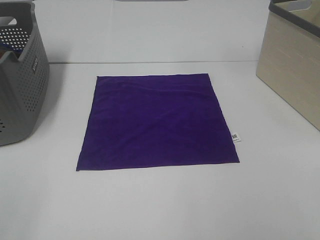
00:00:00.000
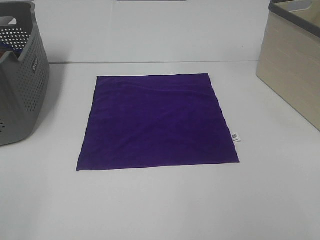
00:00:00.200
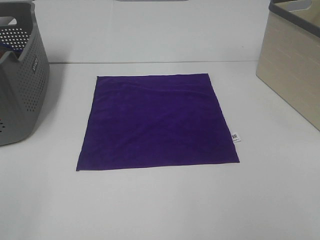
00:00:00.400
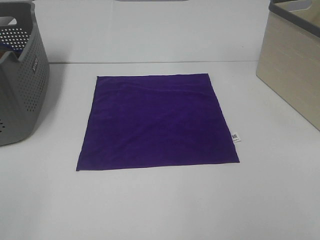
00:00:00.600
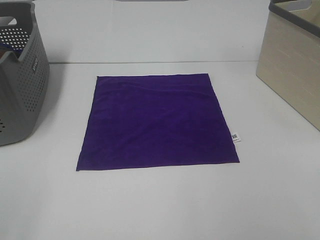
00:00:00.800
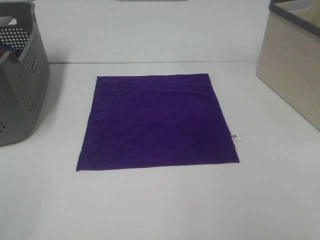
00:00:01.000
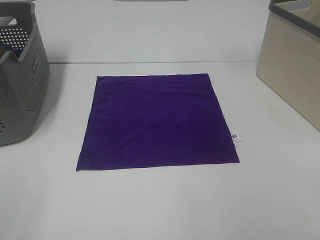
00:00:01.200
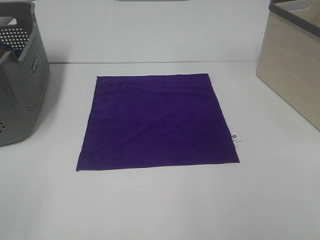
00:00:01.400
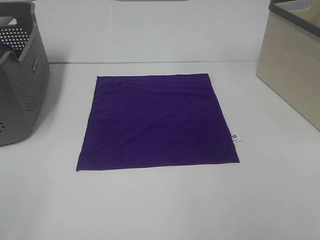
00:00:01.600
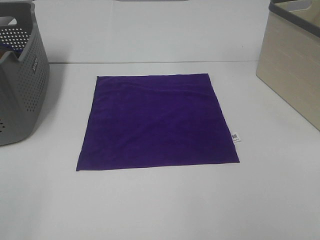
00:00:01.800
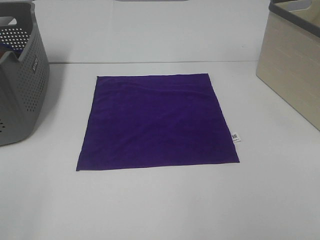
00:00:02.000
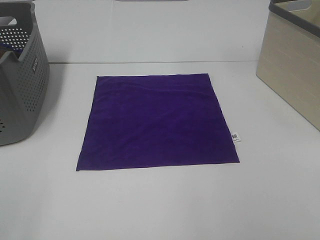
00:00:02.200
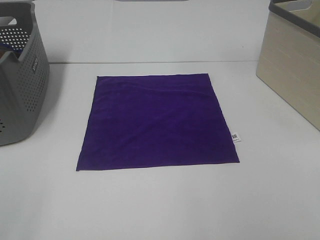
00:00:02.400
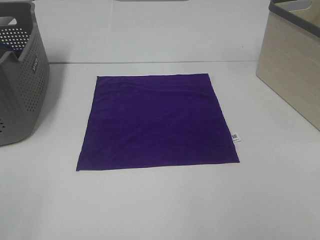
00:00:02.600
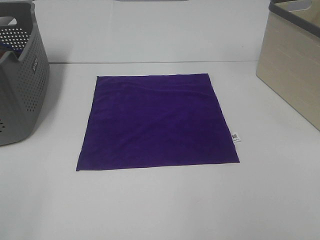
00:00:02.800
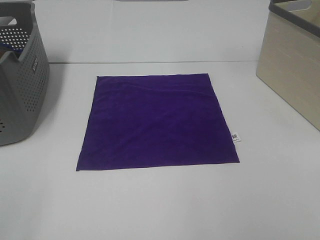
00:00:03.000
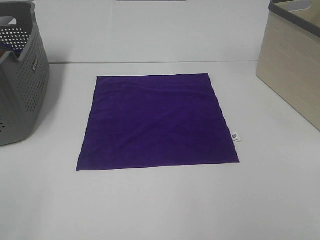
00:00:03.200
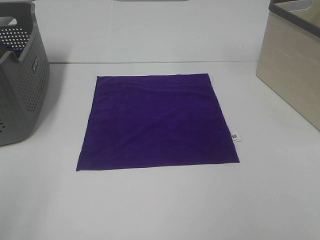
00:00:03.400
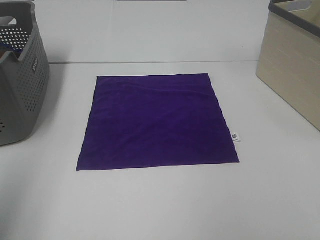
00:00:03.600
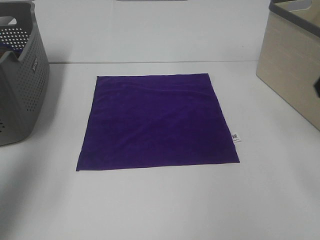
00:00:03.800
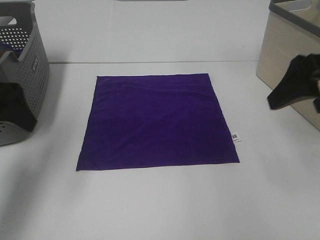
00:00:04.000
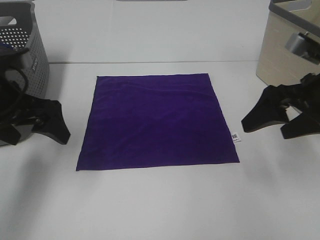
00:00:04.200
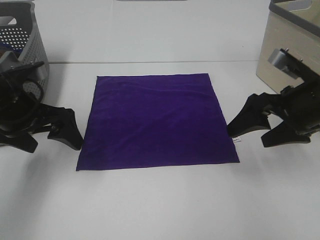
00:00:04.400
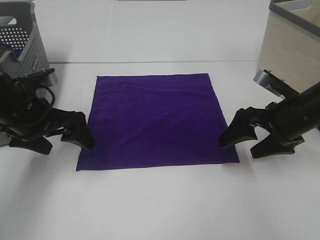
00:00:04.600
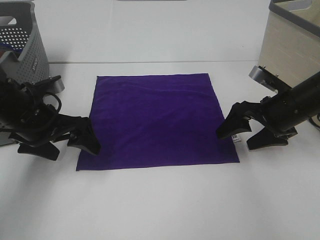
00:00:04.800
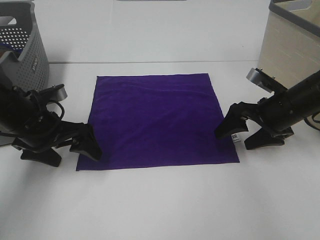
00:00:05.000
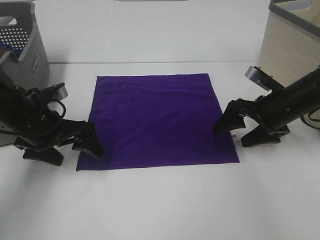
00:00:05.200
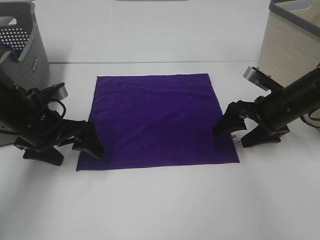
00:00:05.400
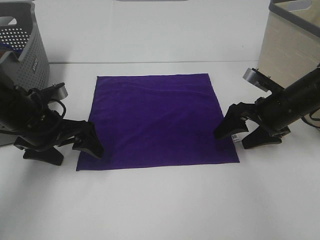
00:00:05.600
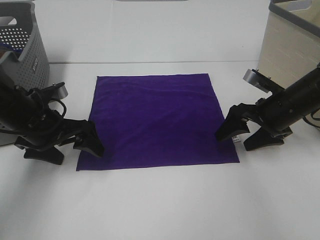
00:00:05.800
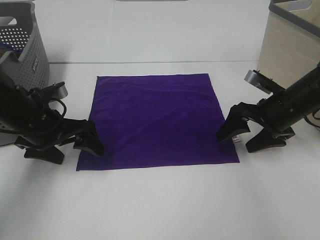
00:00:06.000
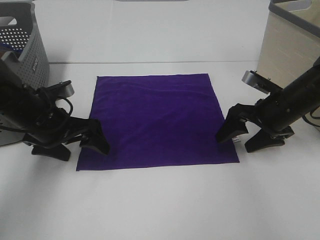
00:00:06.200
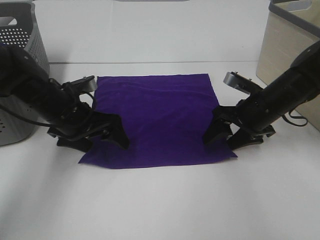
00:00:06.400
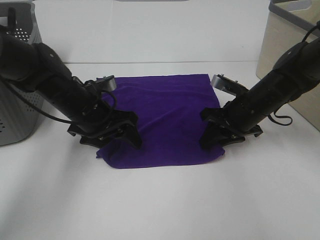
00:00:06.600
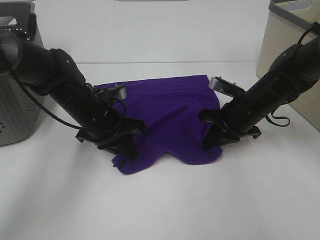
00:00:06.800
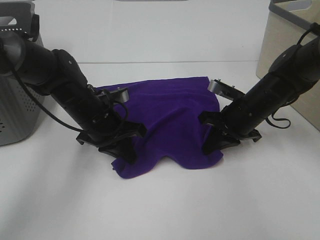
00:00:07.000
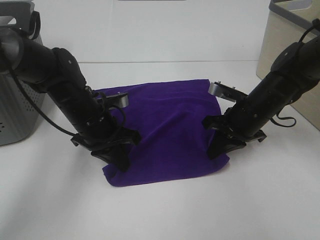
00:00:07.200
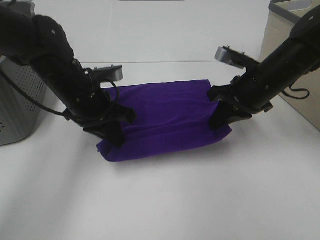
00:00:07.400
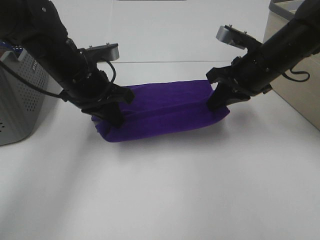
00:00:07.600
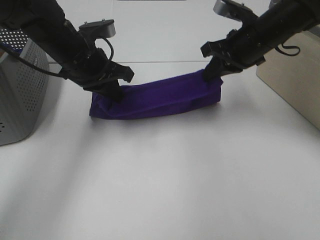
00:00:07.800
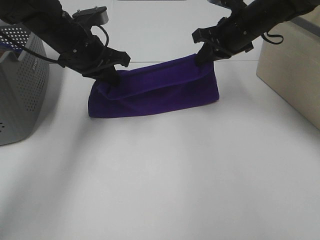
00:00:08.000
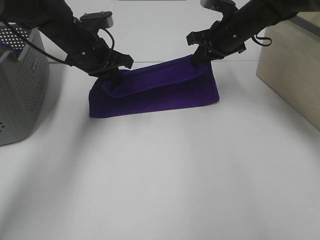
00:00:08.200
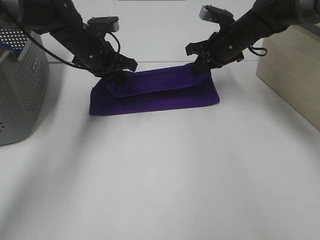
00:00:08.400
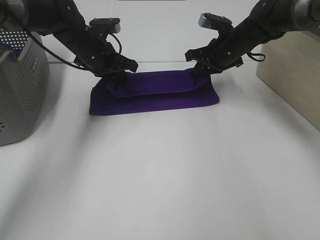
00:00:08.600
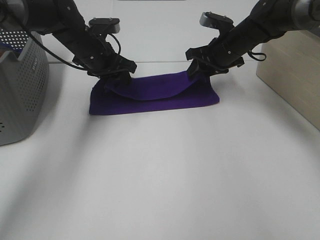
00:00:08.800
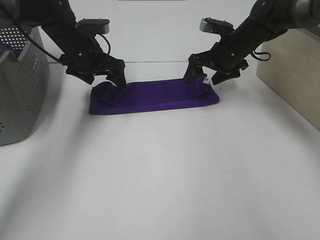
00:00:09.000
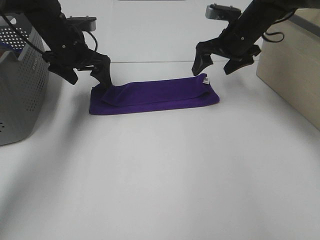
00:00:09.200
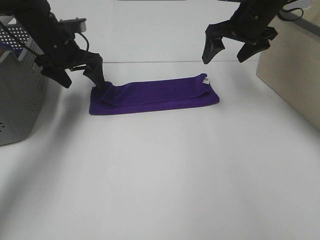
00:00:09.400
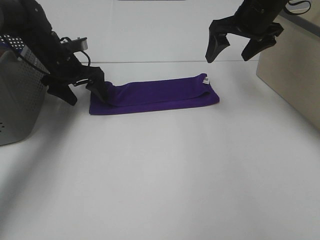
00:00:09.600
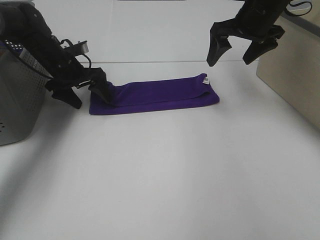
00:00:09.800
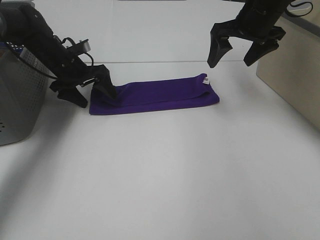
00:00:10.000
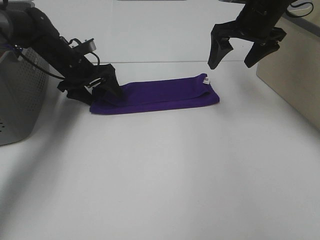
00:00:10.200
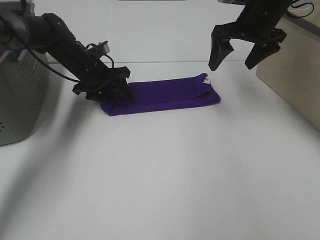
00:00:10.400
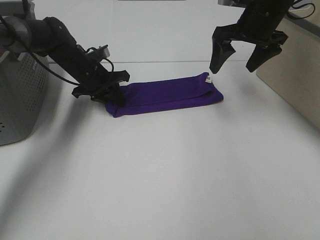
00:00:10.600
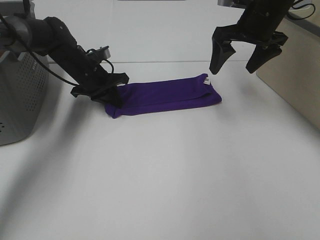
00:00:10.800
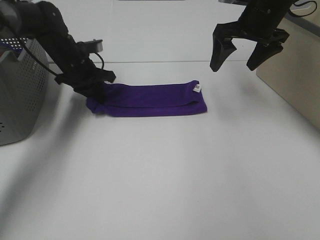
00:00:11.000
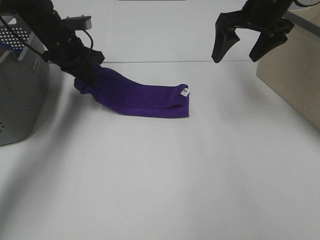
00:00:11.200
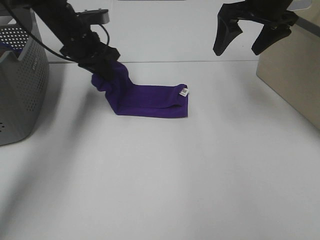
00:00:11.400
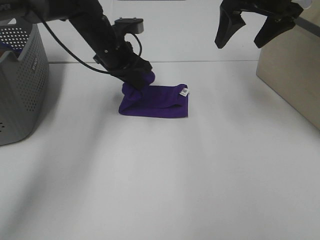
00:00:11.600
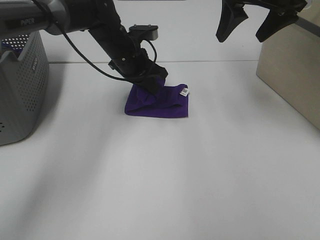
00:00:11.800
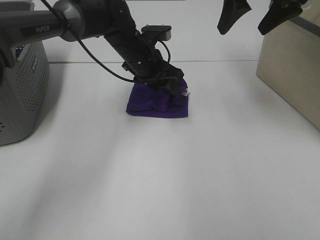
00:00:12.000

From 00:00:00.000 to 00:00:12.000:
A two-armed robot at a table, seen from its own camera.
Task of the whole recording: Fold towels.
Step, from 00:00:00.000 to 00:00:07.200: Left hand: grab the bottom left corner of purple towel.
Step, from 00:00:00.000 to 00:00:07.200: Right hand: grab the bottom right corner of purple towel.
Step, from 00:00:07.400 to 00:00:08.600: Left hand: fold the purple towel up.
Step, from 00:00:07.400 to 00:00:08.600: Right hand: fold the purple towel up.
Step, from 00:00:08.800 to 00:00:11.800: Left hand: fold the purple towel from left to right.
From 00:00:00.000 to 00:00:03.000: The two grippers keep their place.
From 00:00:03.000 to 00:00:04.400: The grippers both shift forward by approximately 30 cm.
From 00:00:04.400 to 00:00:06.000: The left gripper goes about 5 cm downward, while the right gripper heads downward and forward, covering about 10 cm.
From 00:00:06.000 to 00:00:07.600: The right gripper travels upward and to the left by roughly 10 cm, and closes; the left gripper goes roughly 10 cm to the right and upward, and closes.
From 00:00:07.600 to 00:00:09.000: Both grippers travel together forward, roughly 10 cm. The right gripper opens its fingers. Meanwhile the left gripper opens.
From 00:00:09.000 to 00:00:10.400: The left gripper moves downward, about 5 cm; the right gripper shifts roughly 10 cm upward.
From 00:00:10.400 to 00:00:12.000: The right gripper shifts about 10 cm upward. The left gripper travels to the right by roughly 15 cm, and closes, then opens again.

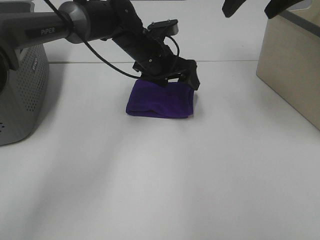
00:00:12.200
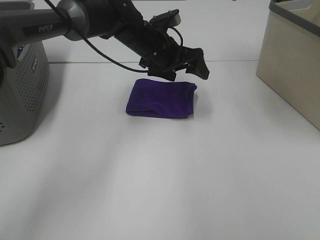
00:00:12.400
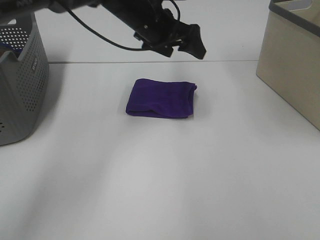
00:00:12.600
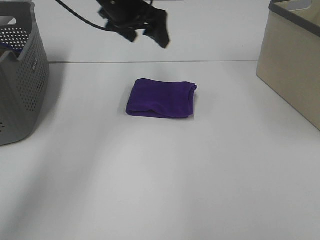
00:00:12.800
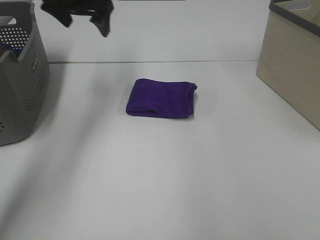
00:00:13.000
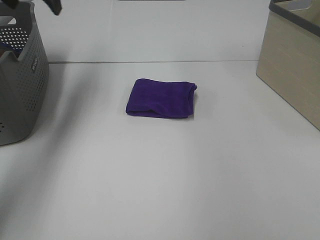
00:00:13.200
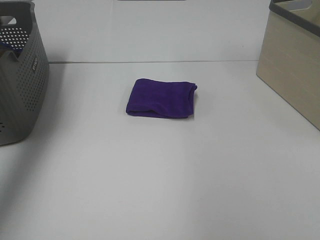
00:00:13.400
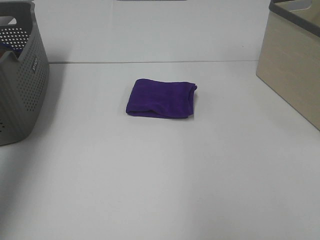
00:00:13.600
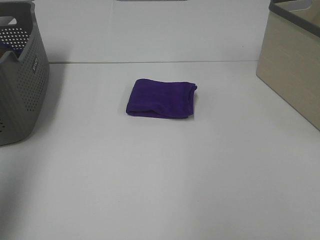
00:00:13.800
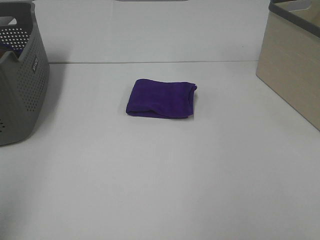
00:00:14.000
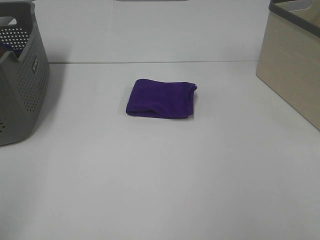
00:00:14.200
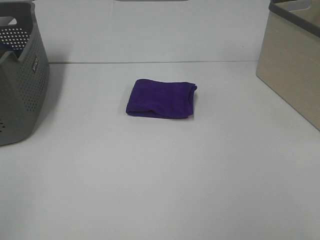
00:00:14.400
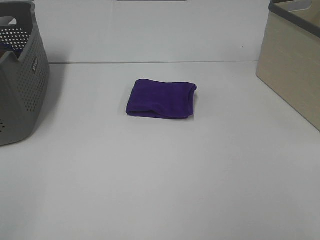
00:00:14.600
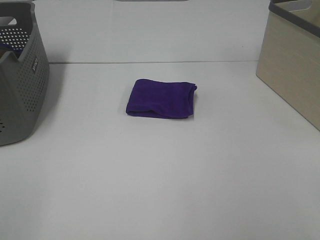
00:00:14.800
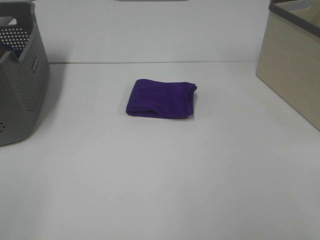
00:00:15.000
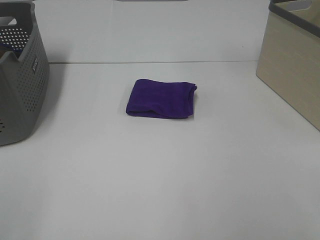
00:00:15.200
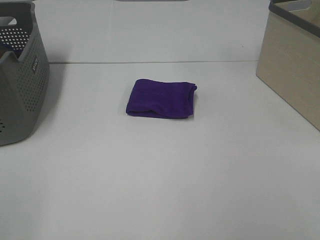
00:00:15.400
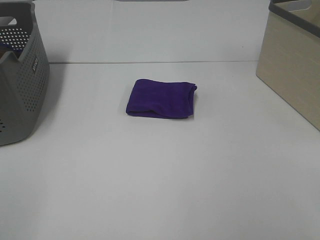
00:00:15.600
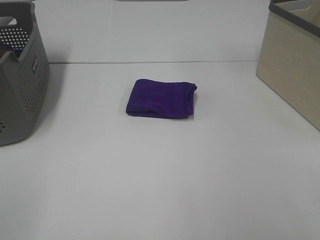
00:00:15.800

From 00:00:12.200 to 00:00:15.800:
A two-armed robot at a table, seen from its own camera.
Task of the whole recording: Fold towels.
From 00:00:12.200 to 00:00:14.000: The left gripper moves backward, to the left and upward, roughly 50 cm. The right gripper travels backward by about 35 cm.
